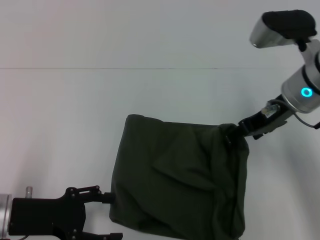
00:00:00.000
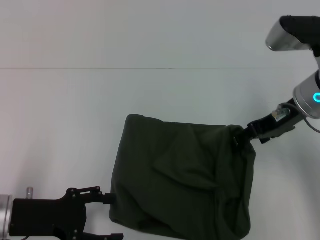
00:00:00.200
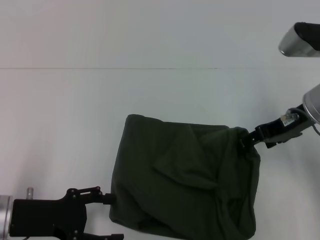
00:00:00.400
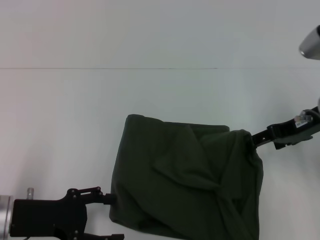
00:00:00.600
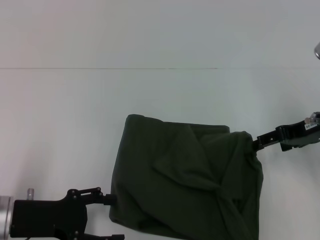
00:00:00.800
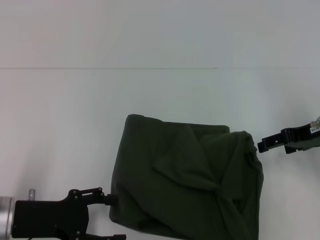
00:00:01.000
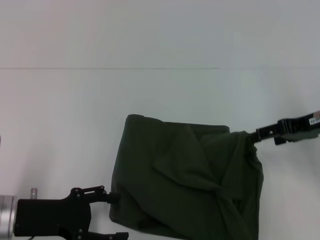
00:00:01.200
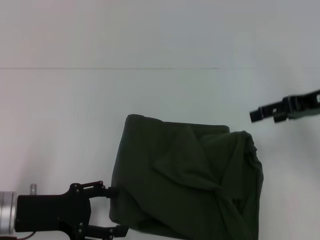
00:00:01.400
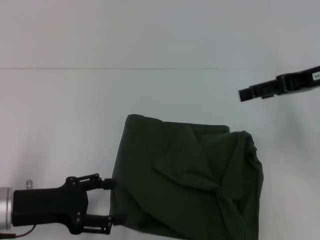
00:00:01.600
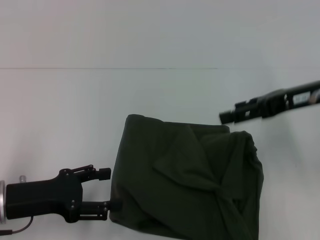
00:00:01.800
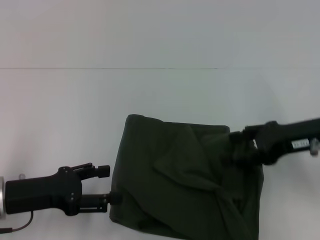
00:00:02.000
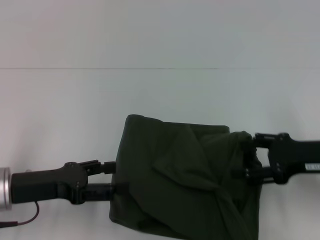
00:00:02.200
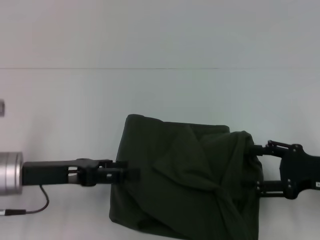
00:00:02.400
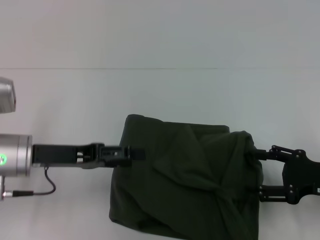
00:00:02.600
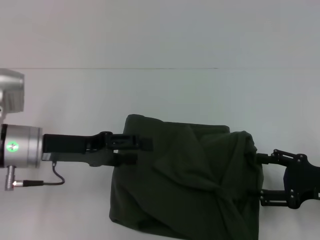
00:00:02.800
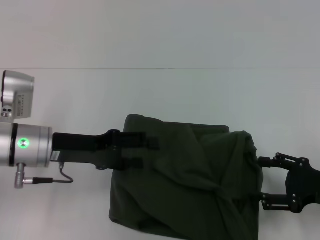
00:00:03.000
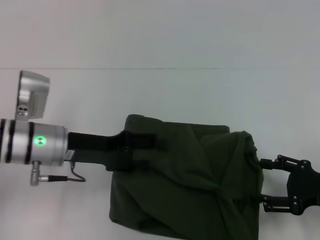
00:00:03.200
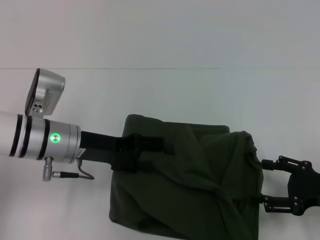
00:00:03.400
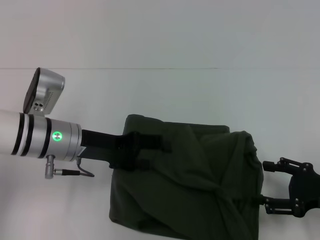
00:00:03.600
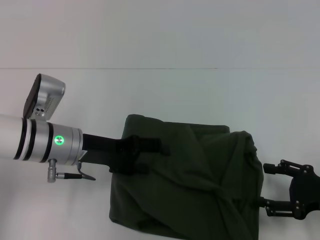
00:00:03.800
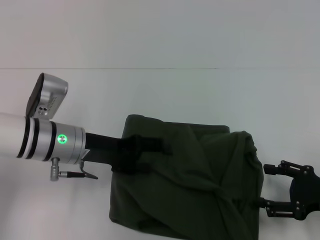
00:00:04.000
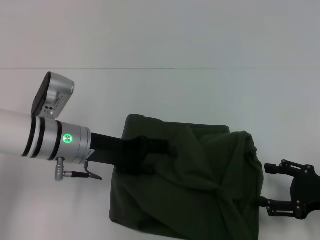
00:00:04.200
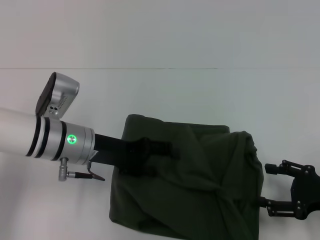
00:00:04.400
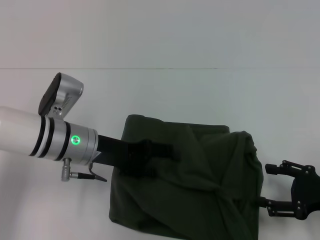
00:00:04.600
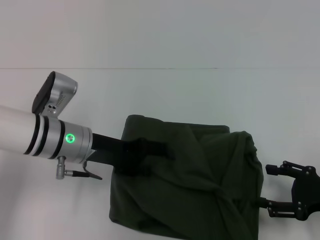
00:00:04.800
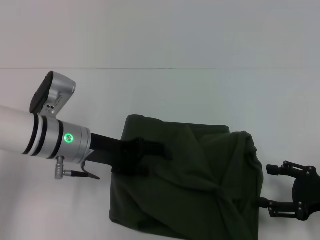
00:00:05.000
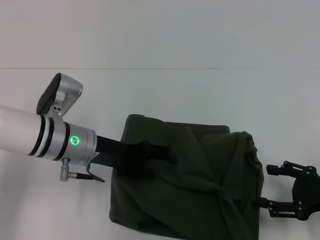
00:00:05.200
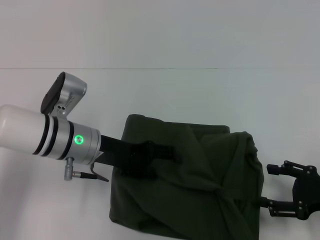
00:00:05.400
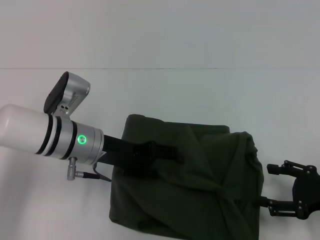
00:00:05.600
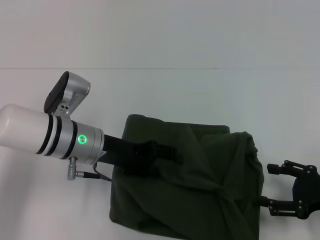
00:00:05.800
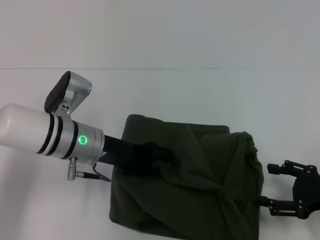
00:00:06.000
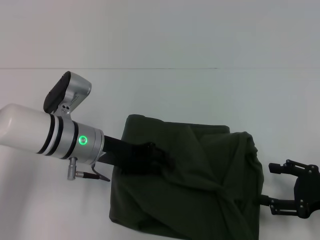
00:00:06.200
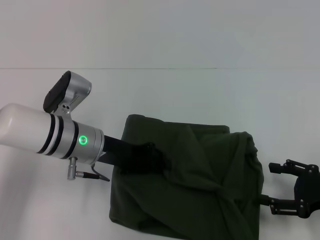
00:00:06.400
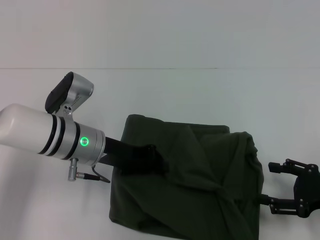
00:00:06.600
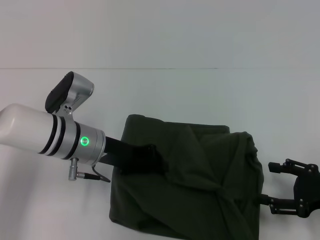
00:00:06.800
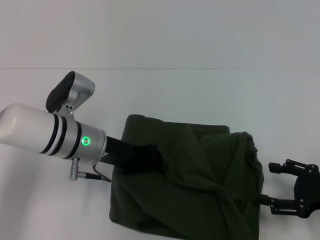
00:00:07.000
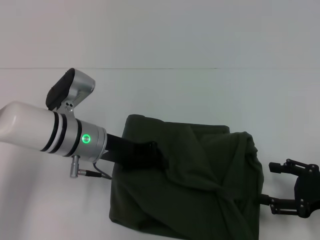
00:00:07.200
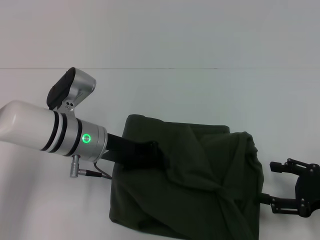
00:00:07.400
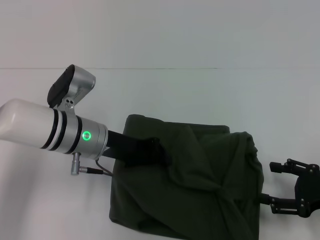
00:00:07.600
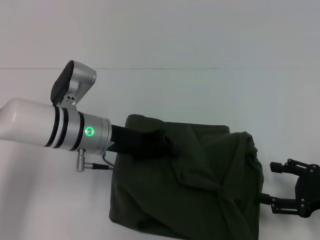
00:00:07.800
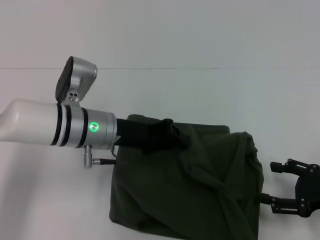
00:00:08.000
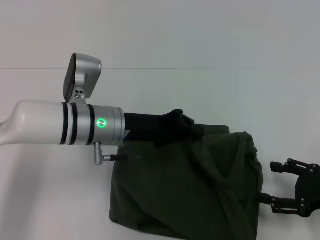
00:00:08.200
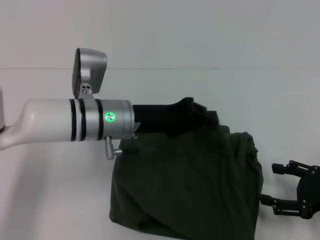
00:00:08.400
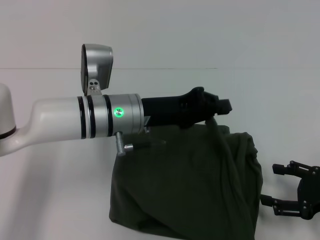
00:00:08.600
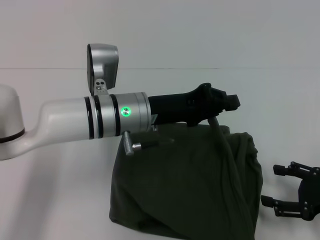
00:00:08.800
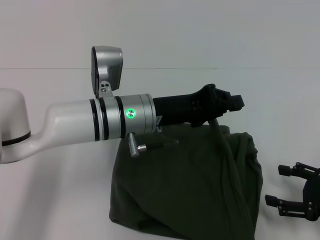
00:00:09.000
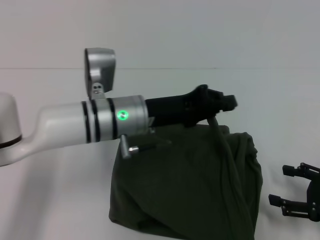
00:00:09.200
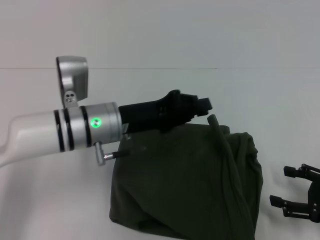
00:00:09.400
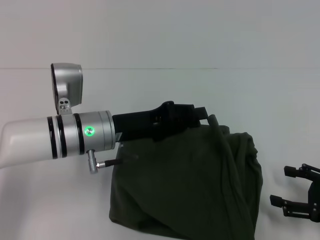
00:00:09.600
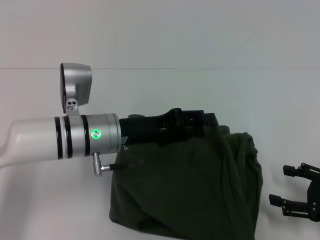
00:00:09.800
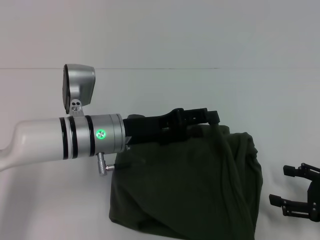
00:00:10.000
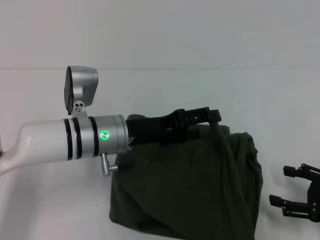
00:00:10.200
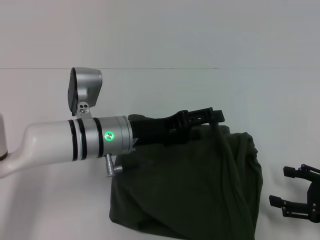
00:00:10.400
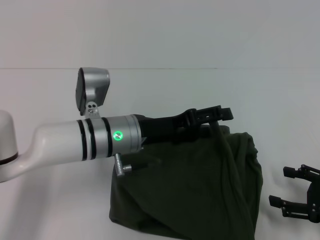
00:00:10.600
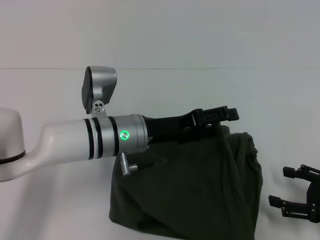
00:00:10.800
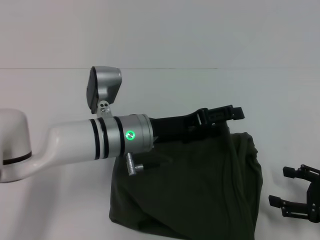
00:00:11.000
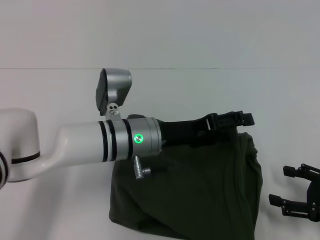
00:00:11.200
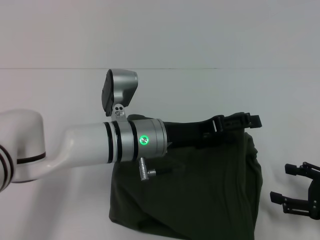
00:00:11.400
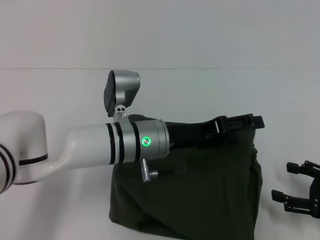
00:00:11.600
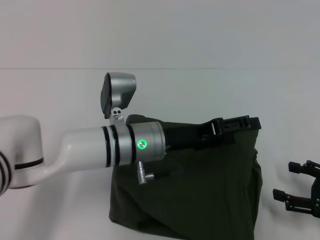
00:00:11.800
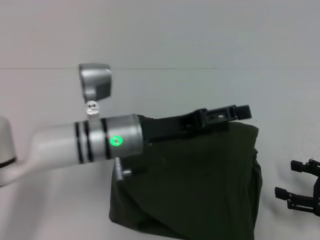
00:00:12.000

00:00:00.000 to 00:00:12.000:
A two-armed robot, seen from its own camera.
00:00:00.000 to 00:00:01.600: The right gripper is displaced to the right by about 10 cm.
00:00:01.600 to 00:00:03.000: The right gripper shifts approximately 20 cm downward and backward; the left gripper heads forward, covering approximately 10 cm.
00:00:03.000 to 00:00:04.400: The left gripper moves some 5 cm.
00:00:04.400 to 00:00:06.000: The grippers stay close to where they were, moving slightly.
00:00:06.000 to 00:00:07.600: The left gripper closes its fingers.
00:00:07.600 to 00:00:09.000: The left gripper shifts approximately 5 cm to the right.
00:00:09.000 to 00:00:10.400: The left gripper opens up.
00:00:10.400 to 00:00:12.000: There are only small adjustments of the grippers.

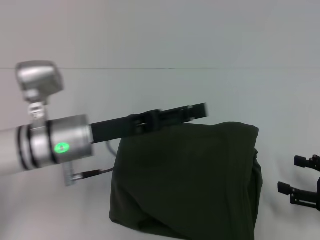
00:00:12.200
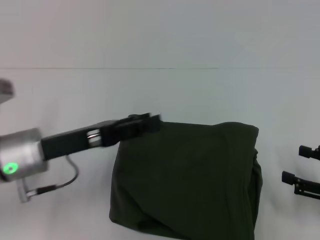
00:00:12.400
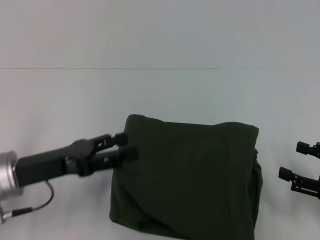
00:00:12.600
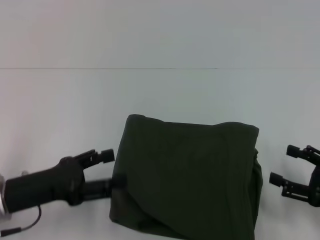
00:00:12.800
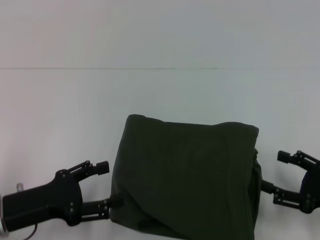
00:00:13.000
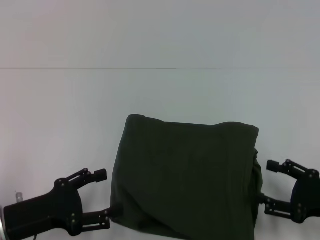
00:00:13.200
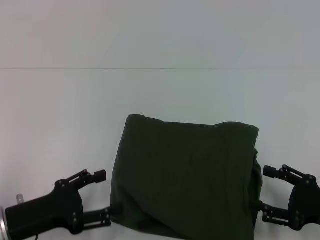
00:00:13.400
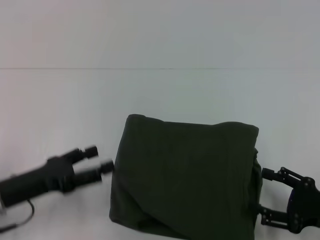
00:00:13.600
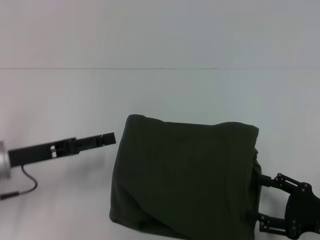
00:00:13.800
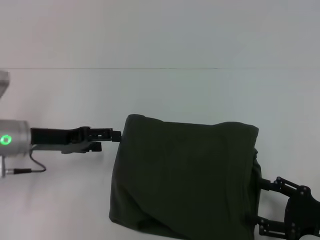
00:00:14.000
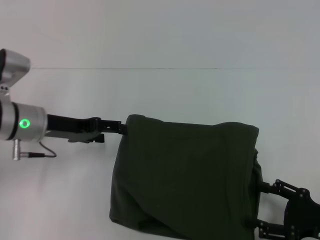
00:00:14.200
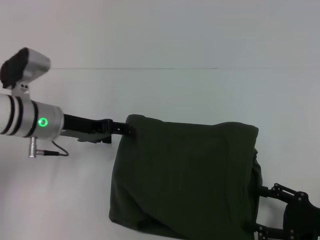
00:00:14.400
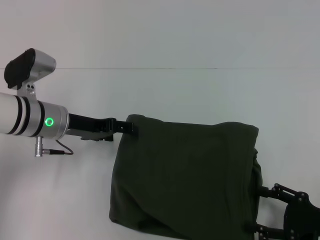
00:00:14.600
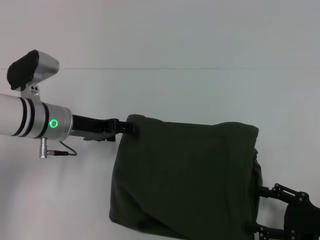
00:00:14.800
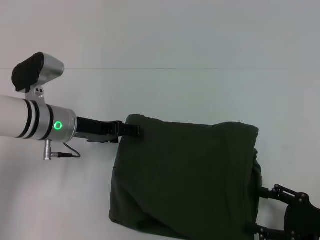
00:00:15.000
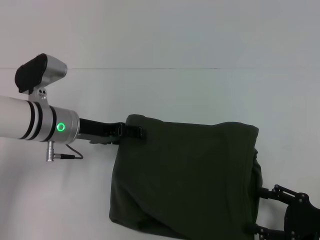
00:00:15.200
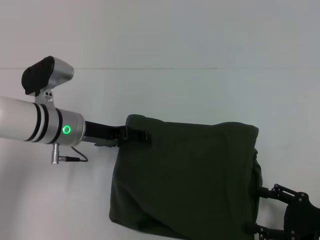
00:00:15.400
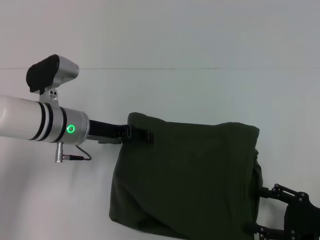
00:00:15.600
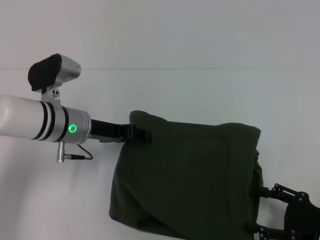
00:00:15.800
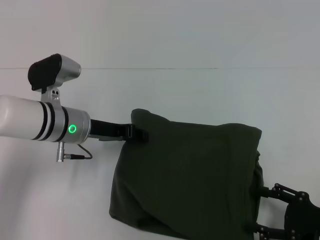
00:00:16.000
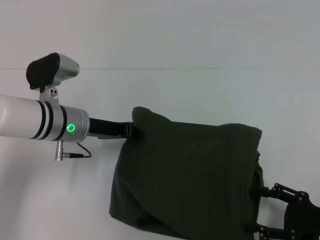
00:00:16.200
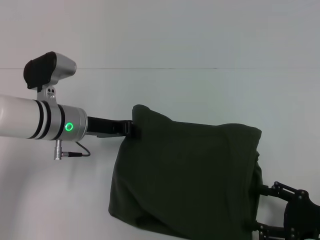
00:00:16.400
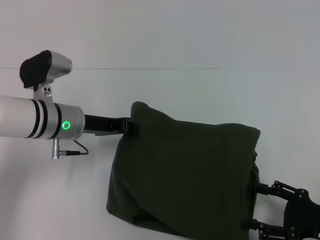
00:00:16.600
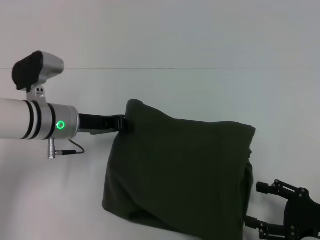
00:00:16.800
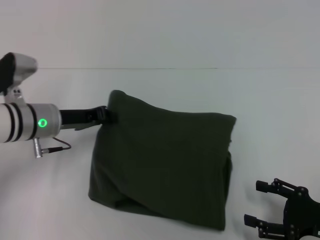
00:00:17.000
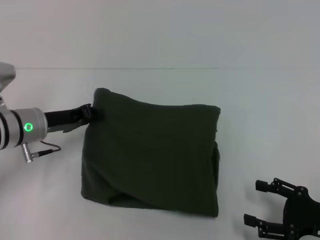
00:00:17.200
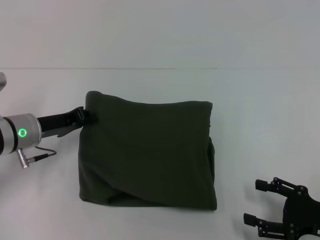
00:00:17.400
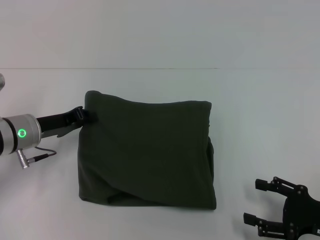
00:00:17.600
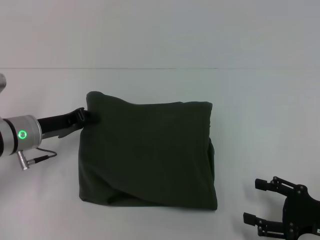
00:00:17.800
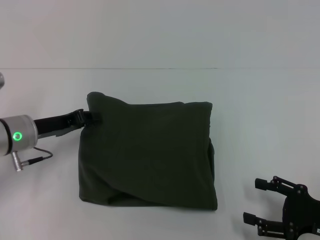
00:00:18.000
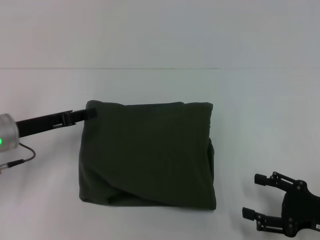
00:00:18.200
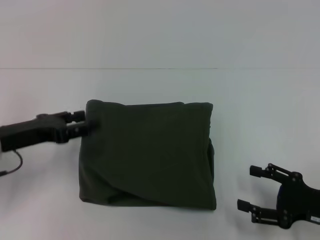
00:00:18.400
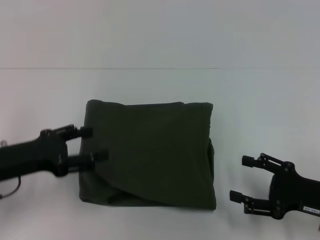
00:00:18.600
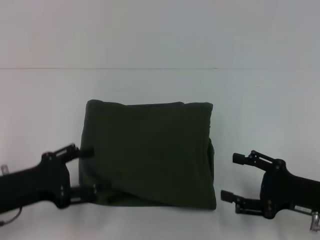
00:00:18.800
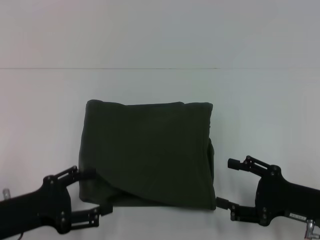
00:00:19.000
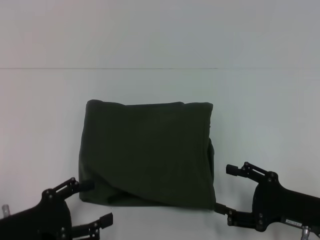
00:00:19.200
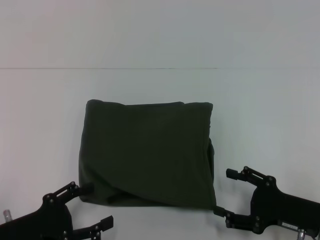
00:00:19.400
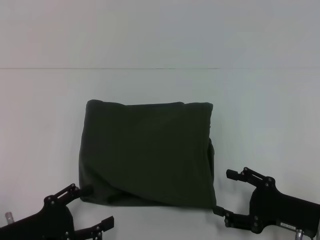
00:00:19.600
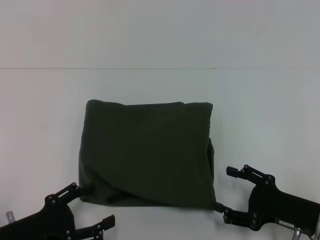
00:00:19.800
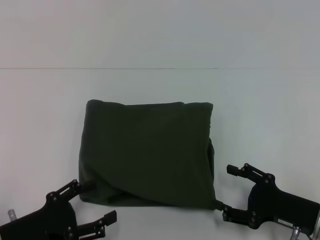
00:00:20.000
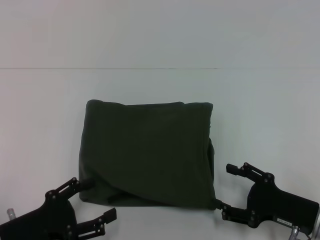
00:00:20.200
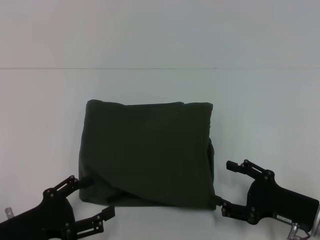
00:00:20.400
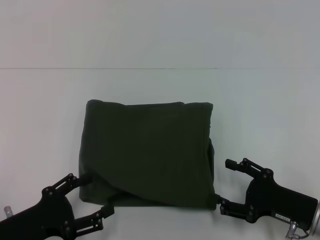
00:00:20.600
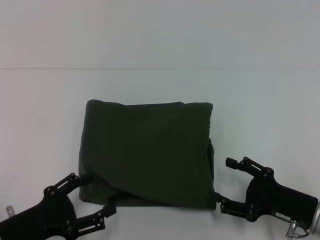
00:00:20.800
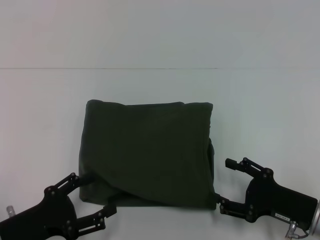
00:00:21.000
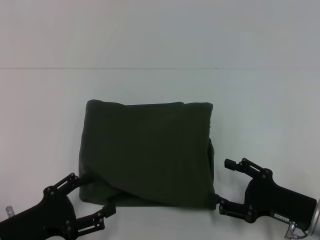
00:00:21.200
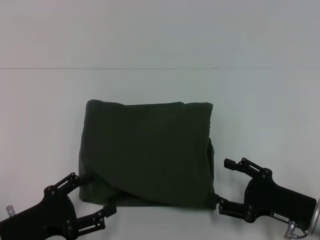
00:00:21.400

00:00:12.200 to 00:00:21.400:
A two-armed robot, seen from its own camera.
00:00:12.200 to 00:00:13.800: The right gripper shifts by some 5 cm. Meanwhile the left gripper goes approximately 10 cm to the left.
00:00:13.800 to 00:00:15.200: The left gripper travels forward and to the right by roughly 10 cm.
00:00:15.200 to 00:00:16.800: The left gripper closes up.
00:00:16.800 to 00:00:18.400: The left gripper shifts approximately 10 cm to the left and backward, and opens its fingers.
00:00:18.400 to 00:00:19.800: The left gripper is displaced backward and downward by some 15 cm, and opens.
00:00:19.800 to 00:00:21.400: The grippers stay close to where they were, moving slightly.
